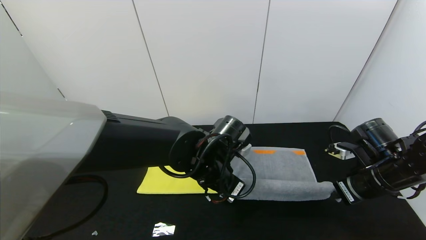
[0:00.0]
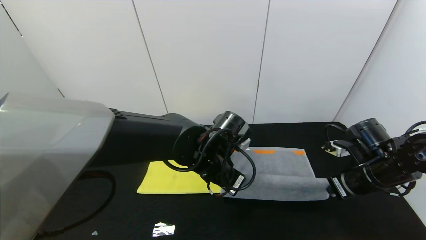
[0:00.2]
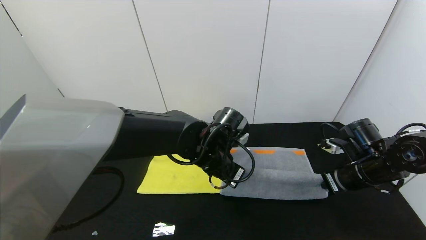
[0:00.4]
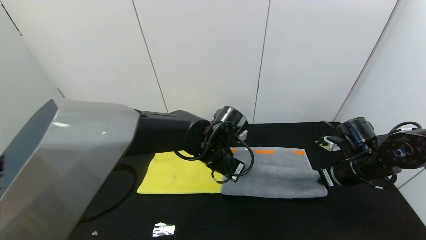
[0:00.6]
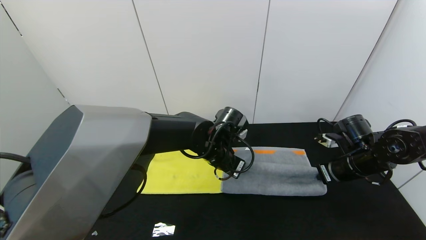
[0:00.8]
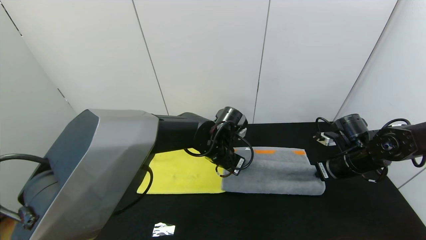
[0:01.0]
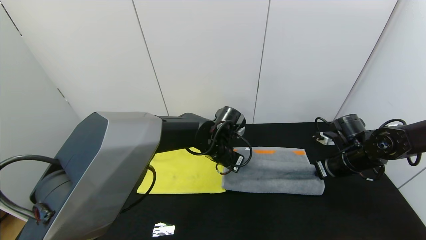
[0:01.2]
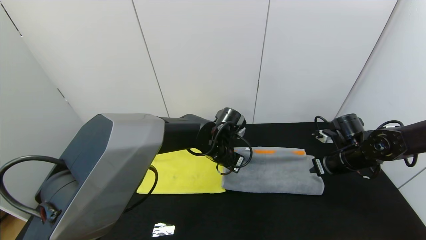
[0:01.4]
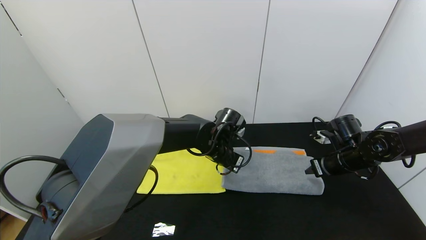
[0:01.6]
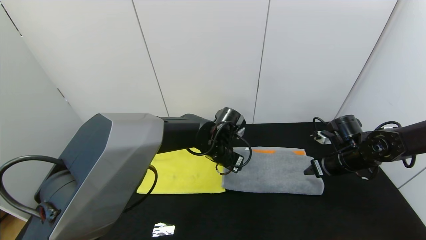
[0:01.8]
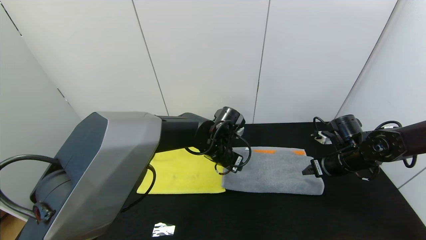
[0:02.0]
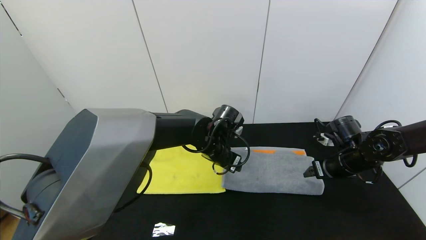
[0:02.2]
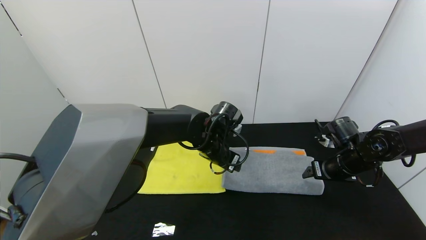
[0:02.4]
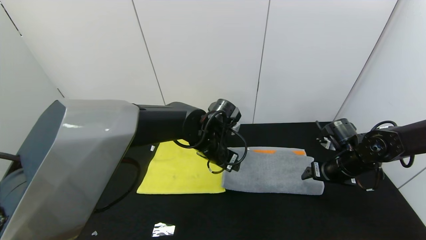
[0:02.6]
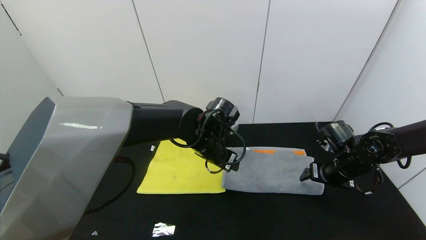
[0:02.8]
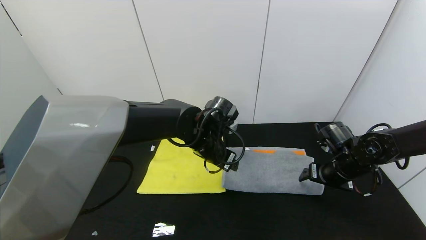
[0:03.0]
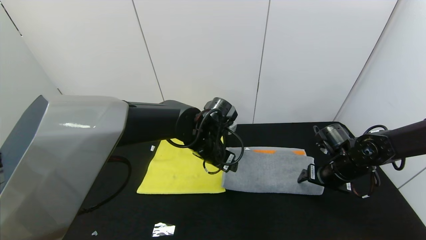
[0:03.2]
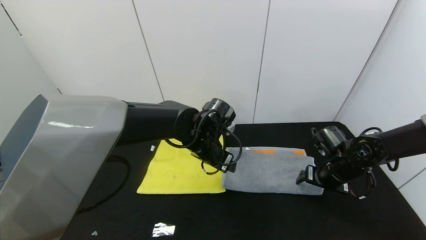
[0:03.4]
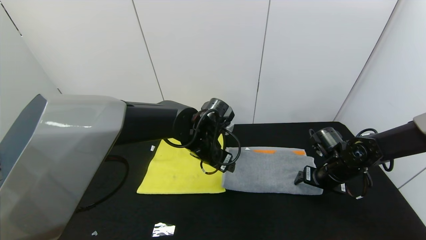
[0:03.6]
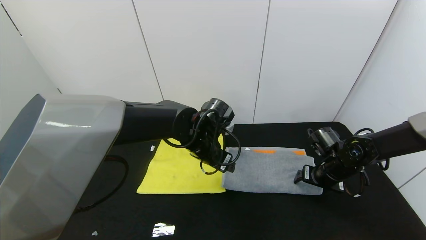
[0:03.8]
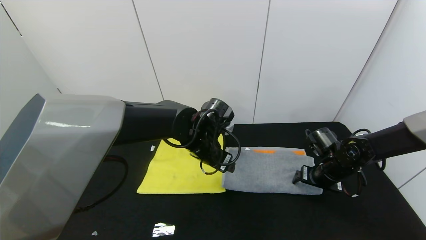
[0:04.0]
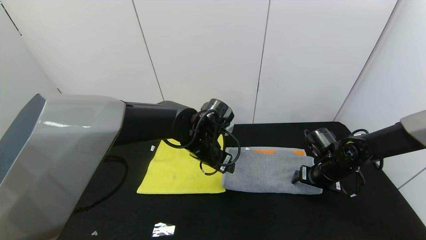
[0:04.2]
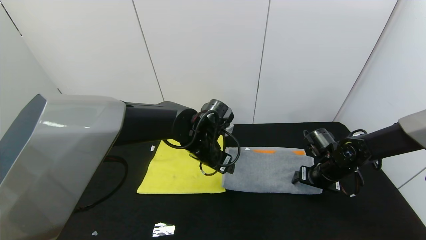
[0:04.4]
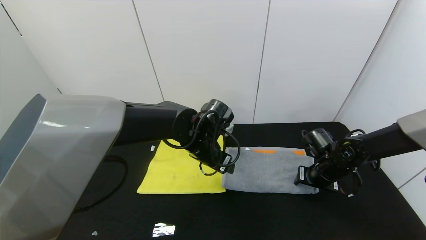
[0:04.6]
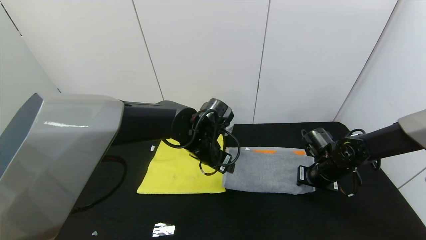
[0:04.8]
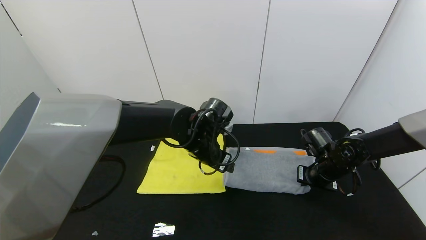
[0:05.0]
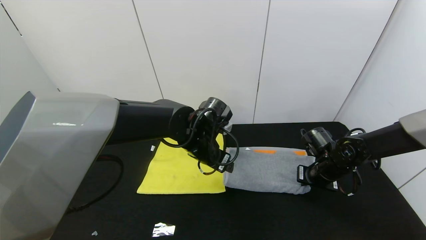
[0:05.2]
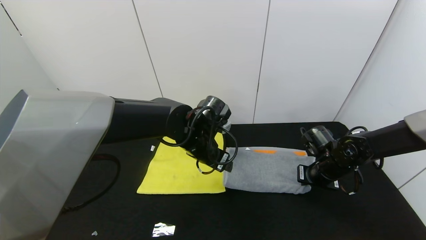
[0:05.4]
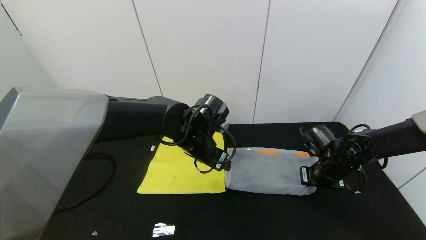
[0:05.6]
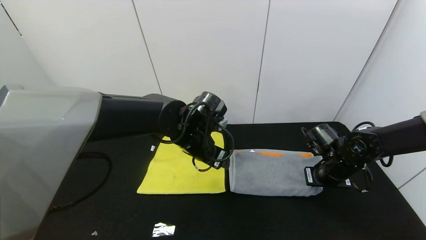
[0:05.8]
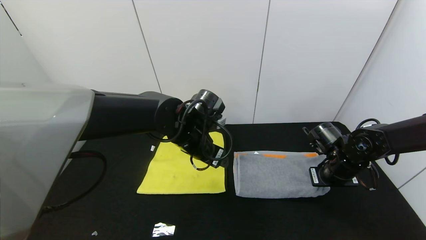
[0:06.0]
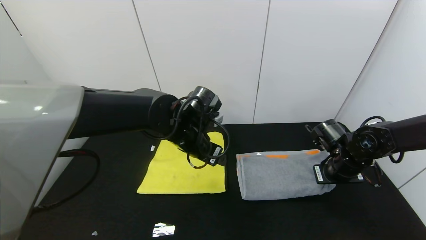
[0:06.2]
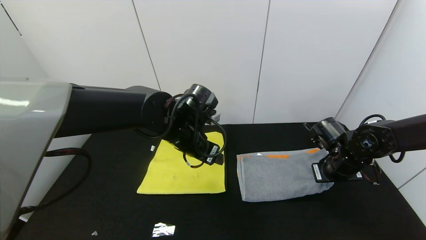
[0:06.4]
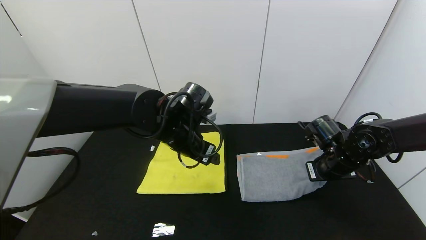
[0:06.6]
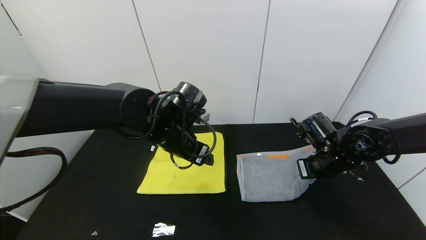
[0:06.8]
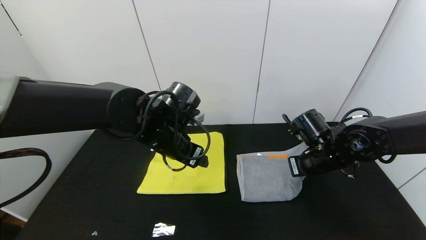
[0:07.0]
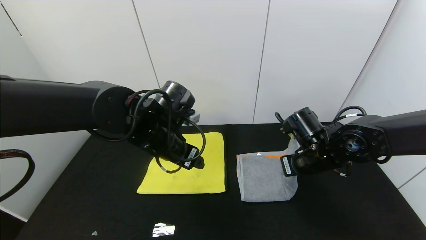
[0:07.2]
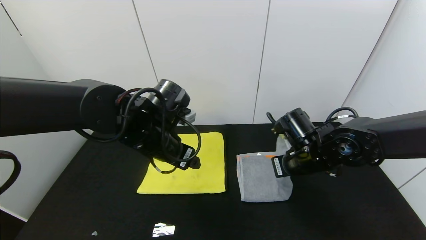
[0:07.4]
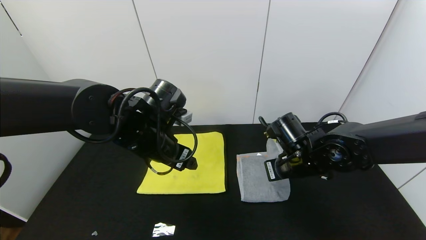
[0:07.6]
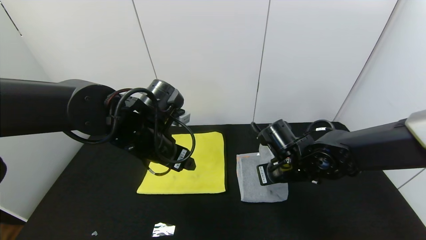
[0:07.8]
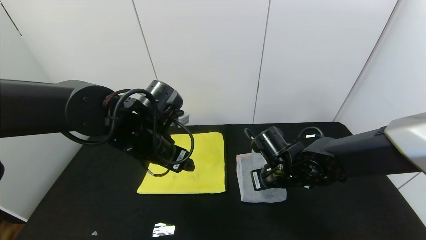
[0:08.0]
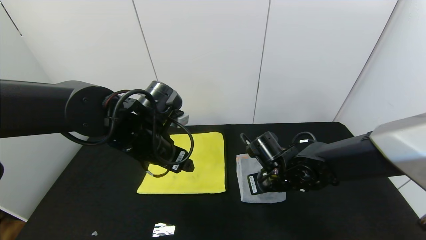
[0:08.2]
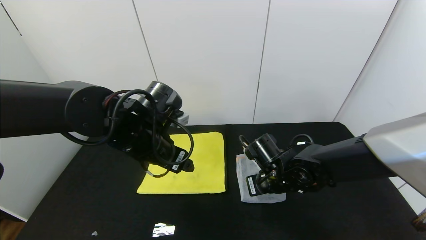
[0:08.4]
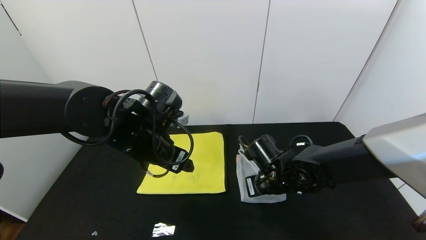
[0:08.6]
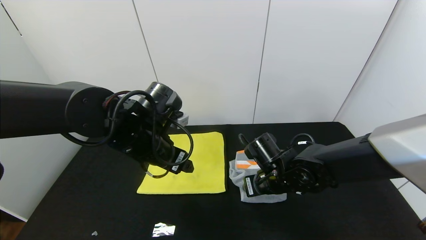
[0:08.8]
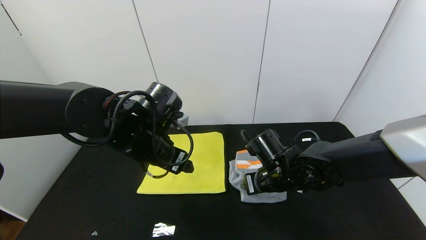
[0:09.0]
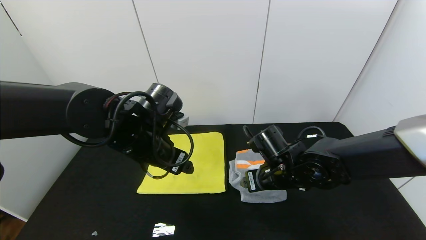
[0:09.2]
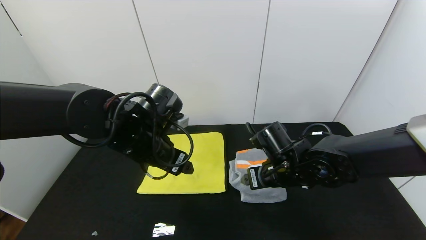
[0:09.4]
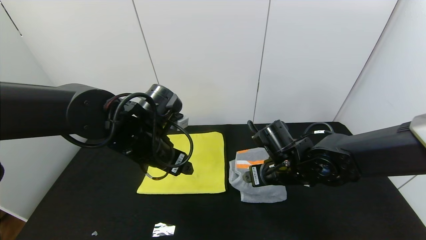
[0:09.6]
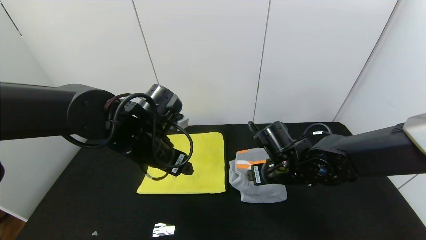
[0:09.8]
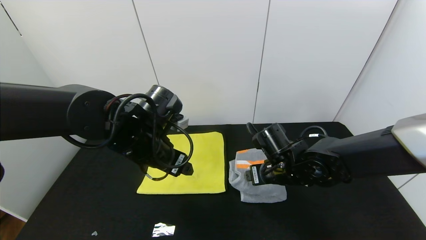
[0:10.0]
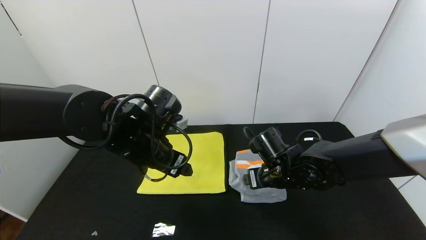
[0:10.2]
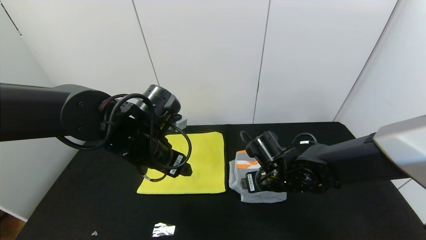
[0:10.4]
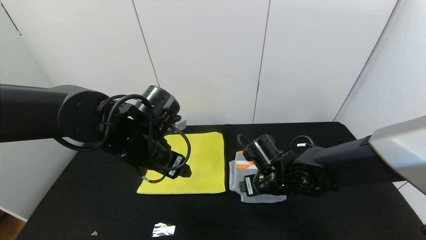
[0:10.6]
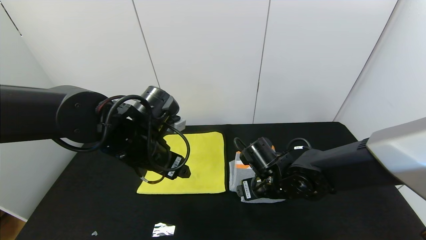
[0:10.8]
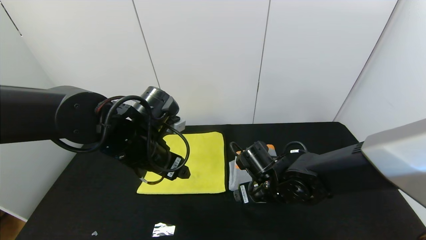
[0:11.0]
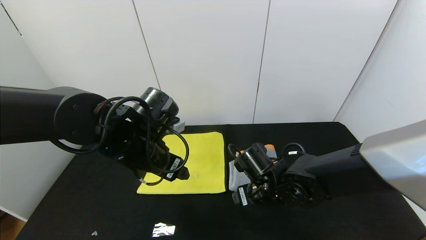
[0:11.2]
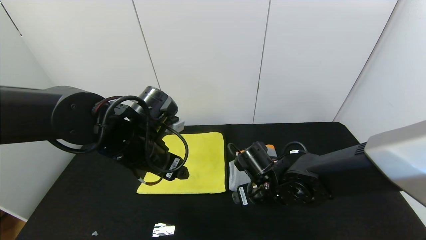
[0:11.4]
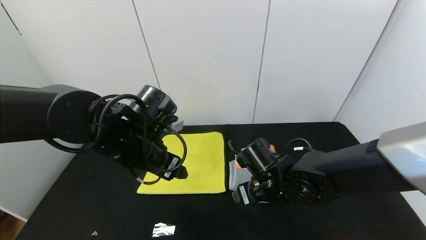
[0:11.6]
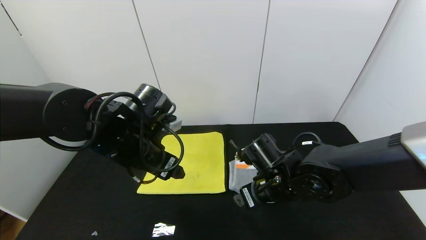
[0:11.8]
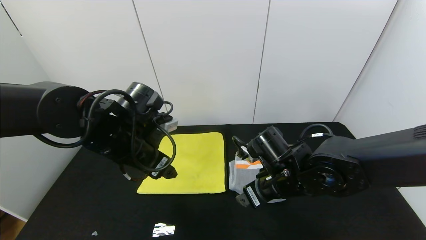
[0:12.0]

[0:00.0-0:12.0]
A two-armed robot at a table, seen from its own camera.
Task of the whole recording: Use the gripper to fold the yellow towel and grey towel in half twice,then put the yellow towel on the grey towel.
Step, 0:00.0 to 0:02.0: Fold the gray towel upwards with the left gripper.
Step, 0:00.0 to 0:02.0: Fold the gray towel upwards with the right gripper.
Step, 0:02.2 to 0:08.8: Fold the gray towel from right to left with right gripper.
Step, 0:09.0 to 0:11.6: Press the gray towel with the right gripper.
0:00.0 to 0:01.6: The two grippers go about 10 cm forward. The right gripper opens up. Meanwhile the left gripper opens its fingers.
0:01.6 to 0:03.0: The left gripper moves approximately 5 cm, while the right gripper opens.
0:03.0 to 0:04.4: The grippers stay close to where they were, moving slightly.
0:04.4 to 0:06.0: The right gripper closes its fingers.
0:06.0 to 0:07.6: The left gripper heads to the left, covering some 5 cm; the right gripper travels to the left by about 10 cm.
0:07.6 to 0:09.0: The right gripper opens its fingers.
0:09.0 to 0:10.4: There are only small adjustments of the grippers.
0:10.4 to 0:12.0: The right gripper changes place by about 5 cm.

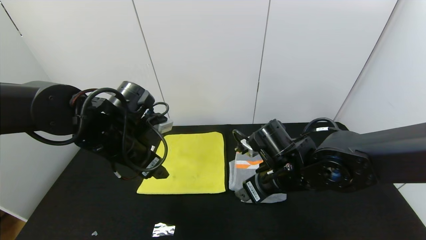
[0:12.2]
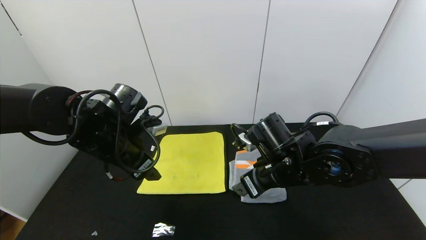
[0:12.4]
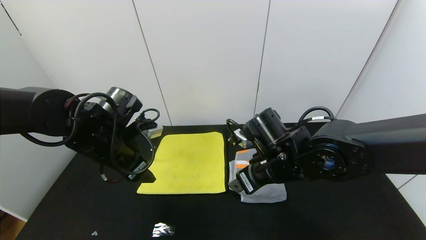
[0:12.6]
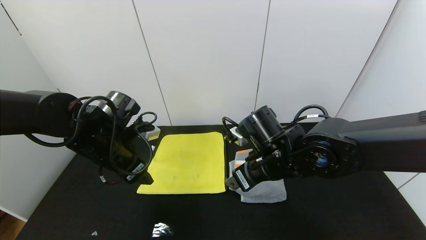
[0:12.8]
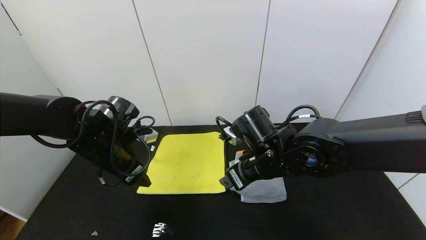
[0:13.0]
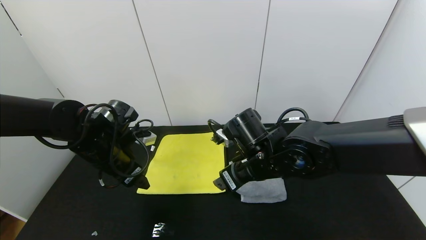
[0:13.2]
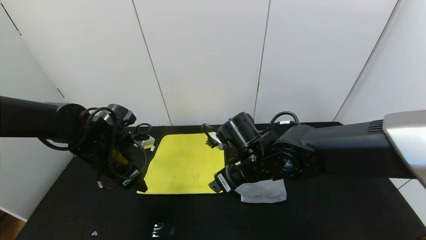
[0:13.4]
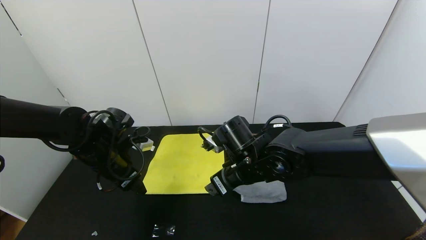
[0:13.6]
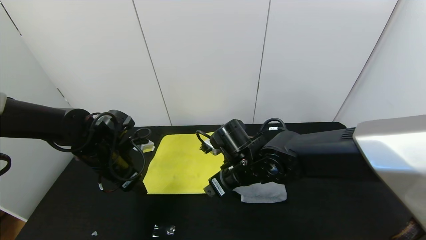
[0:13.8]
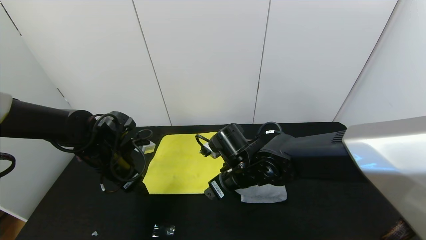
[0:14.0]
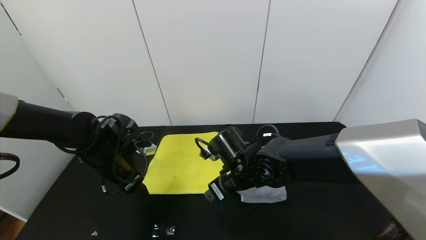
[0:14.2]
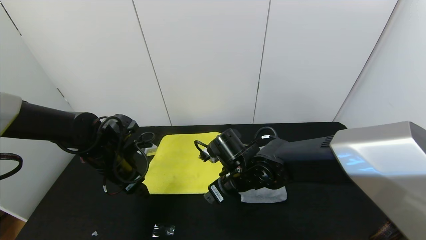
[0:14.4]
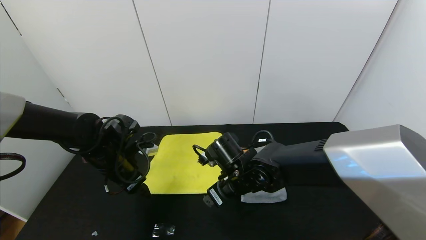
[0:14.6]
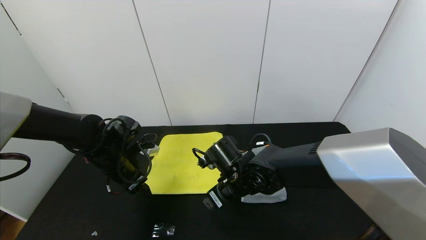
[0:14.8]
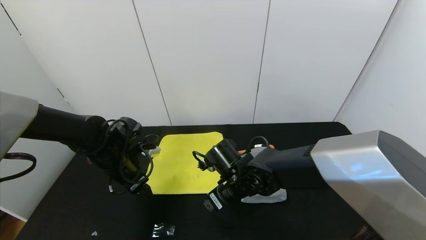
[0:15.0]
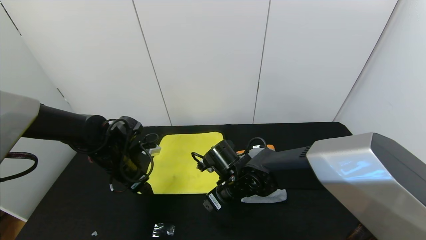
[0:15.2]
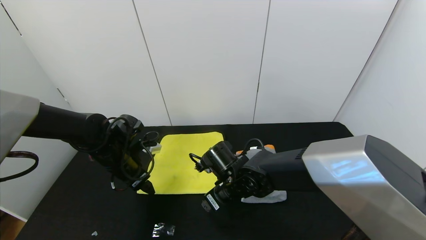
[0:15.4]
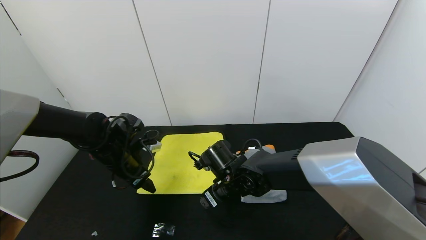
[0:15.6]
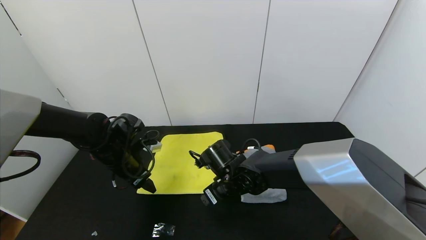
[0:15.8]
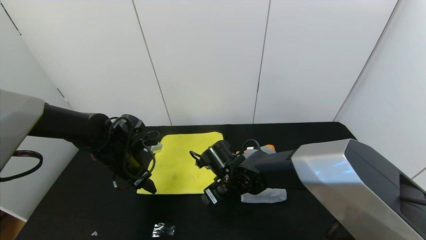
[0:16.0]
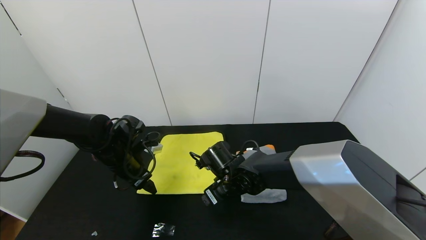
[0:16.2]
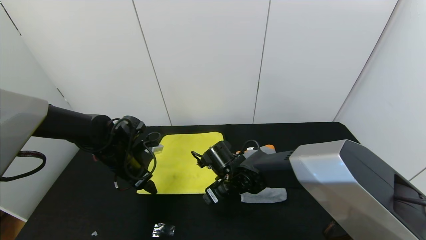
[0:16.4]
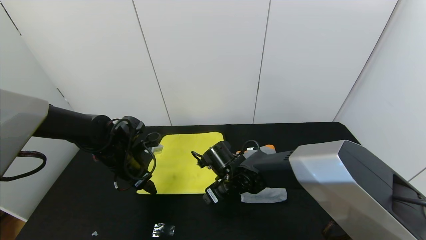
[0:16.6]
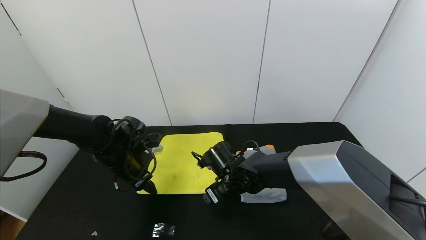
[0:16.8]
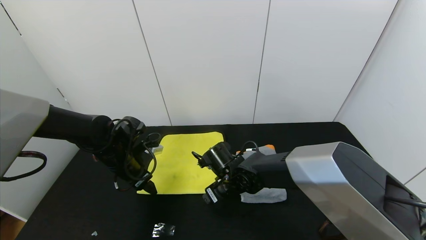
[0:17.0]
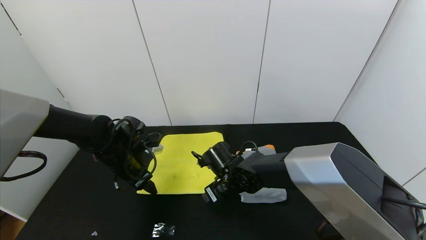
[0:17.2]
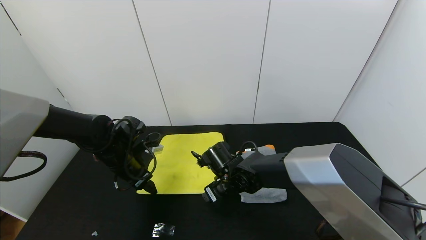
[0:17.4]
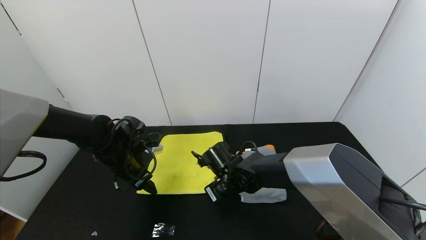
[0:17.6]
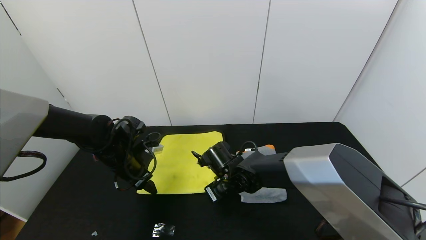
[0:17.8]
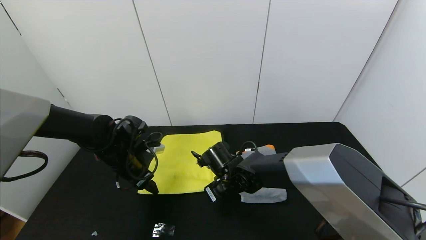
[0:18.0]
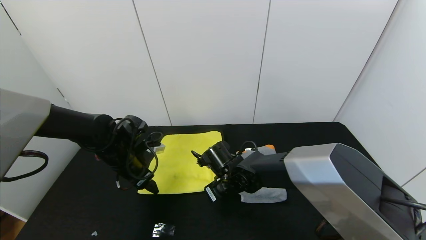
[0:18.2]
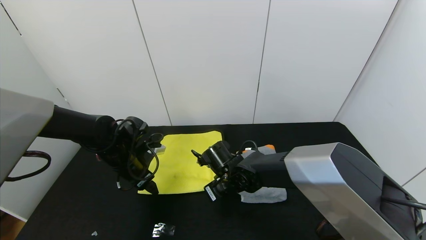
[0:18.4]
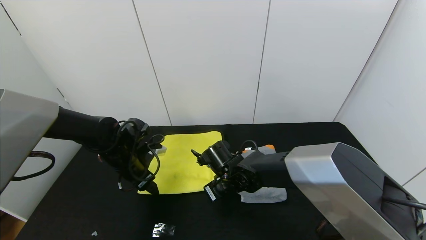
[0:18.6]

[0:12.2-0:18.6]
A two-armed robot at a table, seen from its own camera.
Task of the whole recording: Use the gripper to fold the yellow towel and grey towel in half twice,then put the yellow towel on the grey towel.
0:12.2 to 0:13.8: The right gripper heads to the left, covering roughly 5 cm, while the left gripper shifts approximately 10 cm to the left and downward.
0:13.8 to 0:15.4: The right gripper shifts some 5 cm downward.
0:15.4 to 0:17.0: The grippers move only a little.
0:17.0 to 0:18.6: The right gripper closes.
